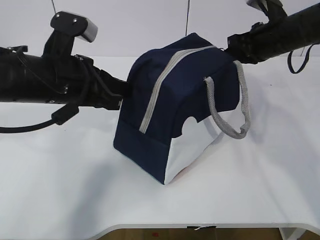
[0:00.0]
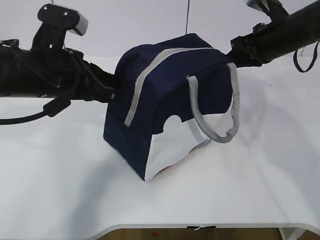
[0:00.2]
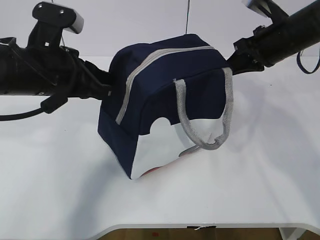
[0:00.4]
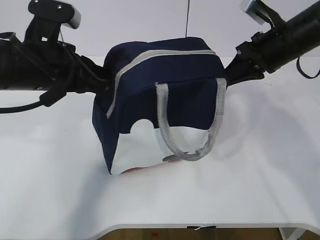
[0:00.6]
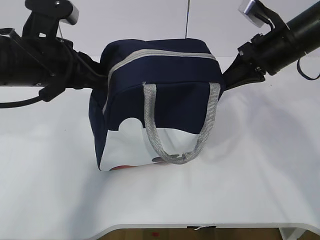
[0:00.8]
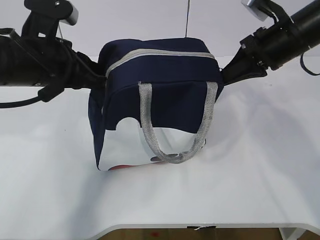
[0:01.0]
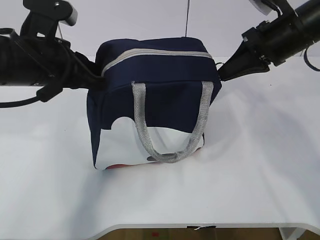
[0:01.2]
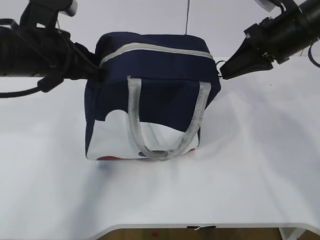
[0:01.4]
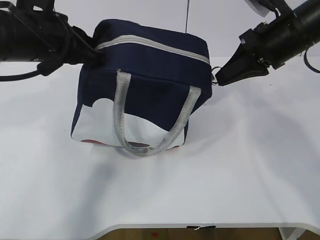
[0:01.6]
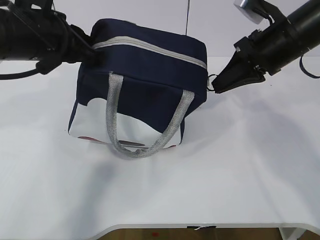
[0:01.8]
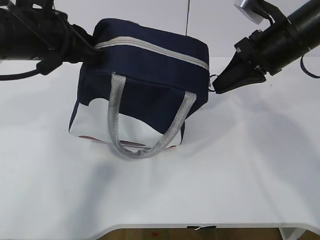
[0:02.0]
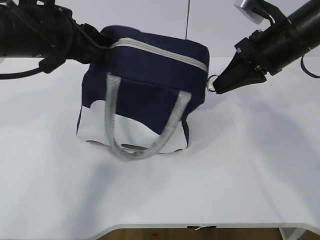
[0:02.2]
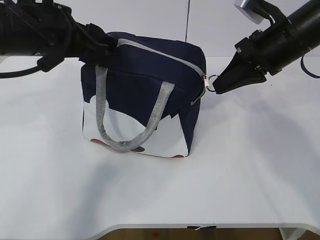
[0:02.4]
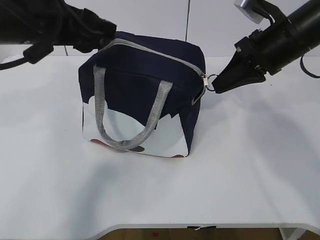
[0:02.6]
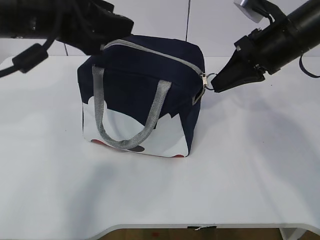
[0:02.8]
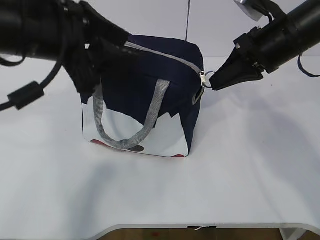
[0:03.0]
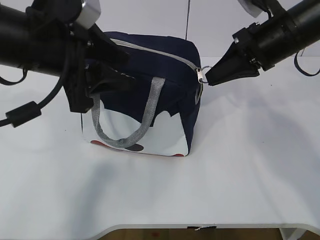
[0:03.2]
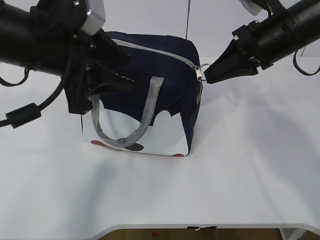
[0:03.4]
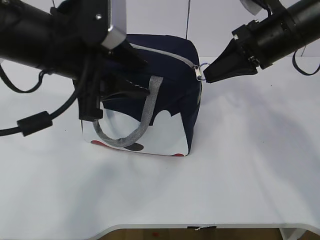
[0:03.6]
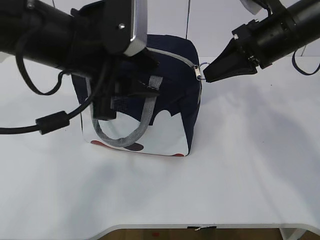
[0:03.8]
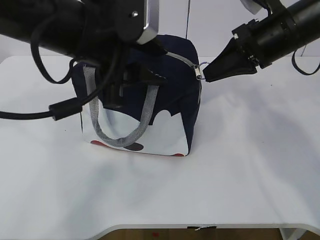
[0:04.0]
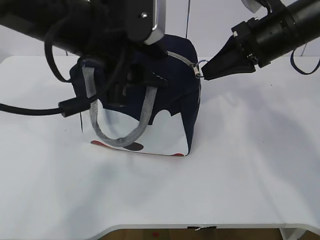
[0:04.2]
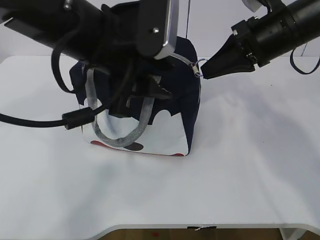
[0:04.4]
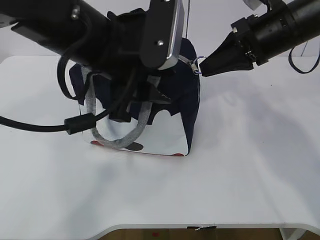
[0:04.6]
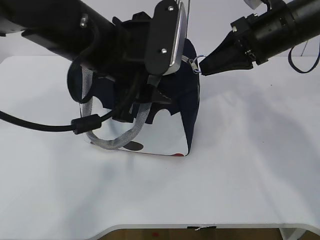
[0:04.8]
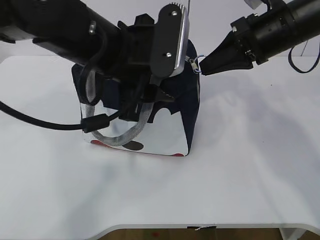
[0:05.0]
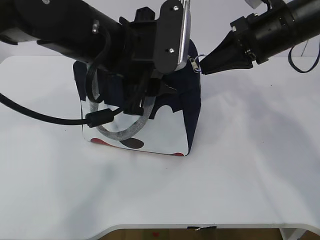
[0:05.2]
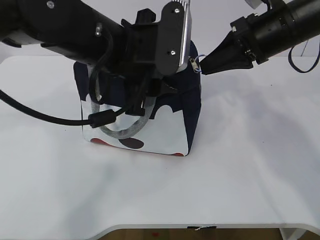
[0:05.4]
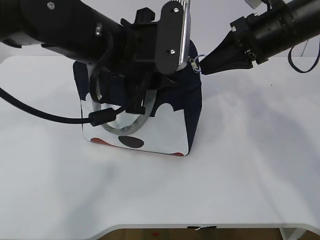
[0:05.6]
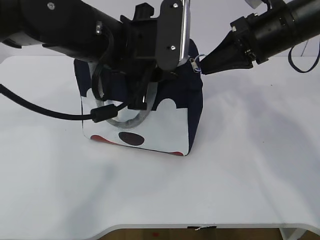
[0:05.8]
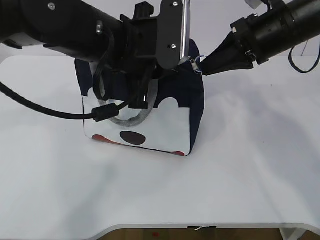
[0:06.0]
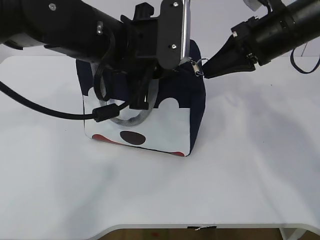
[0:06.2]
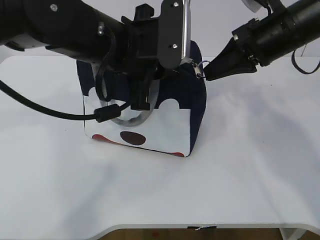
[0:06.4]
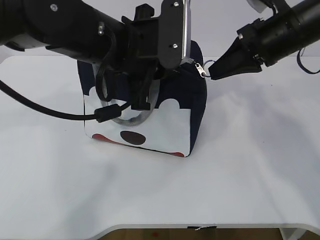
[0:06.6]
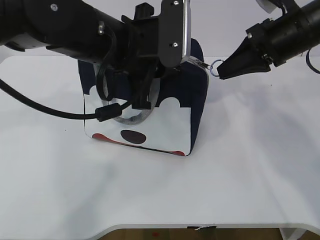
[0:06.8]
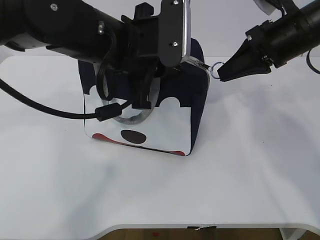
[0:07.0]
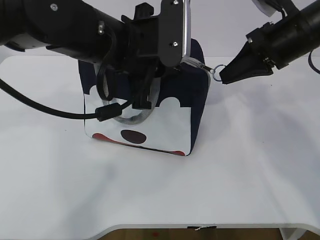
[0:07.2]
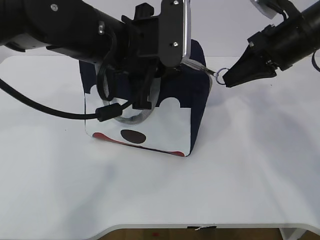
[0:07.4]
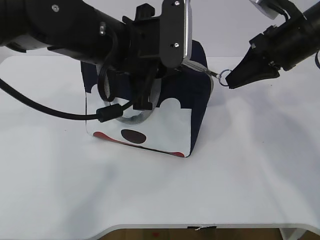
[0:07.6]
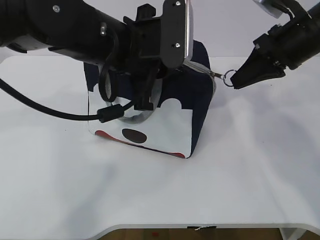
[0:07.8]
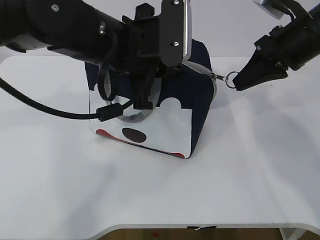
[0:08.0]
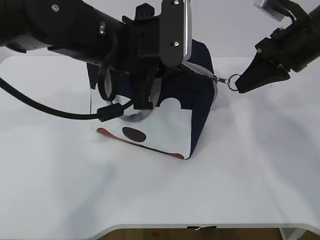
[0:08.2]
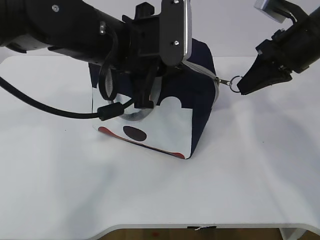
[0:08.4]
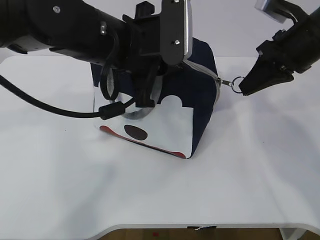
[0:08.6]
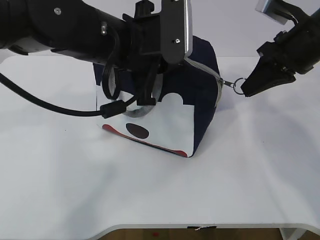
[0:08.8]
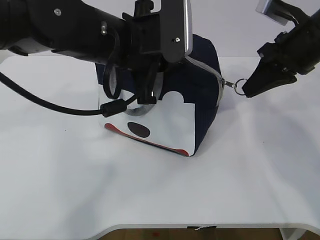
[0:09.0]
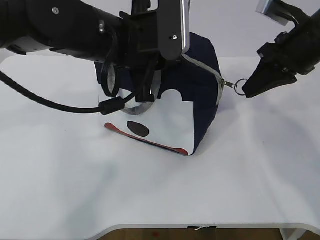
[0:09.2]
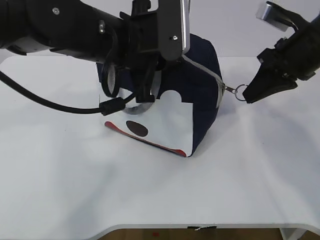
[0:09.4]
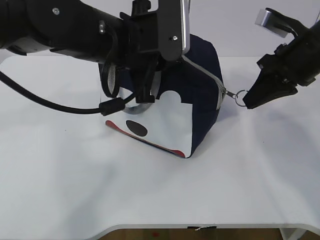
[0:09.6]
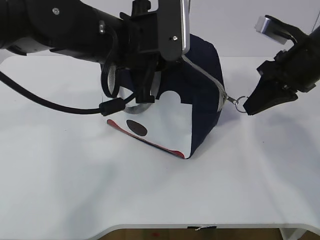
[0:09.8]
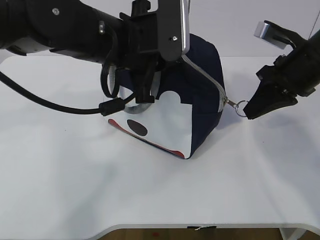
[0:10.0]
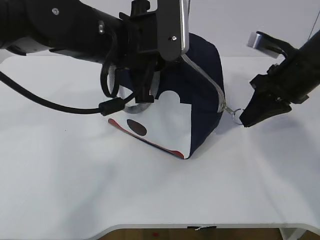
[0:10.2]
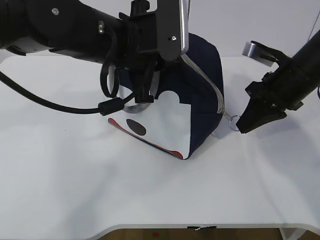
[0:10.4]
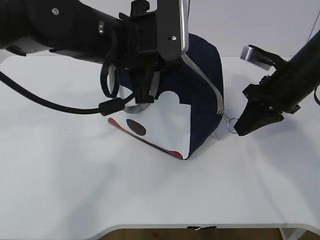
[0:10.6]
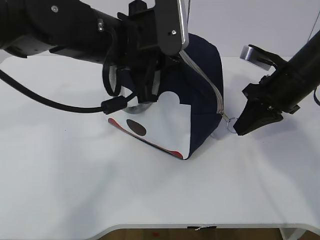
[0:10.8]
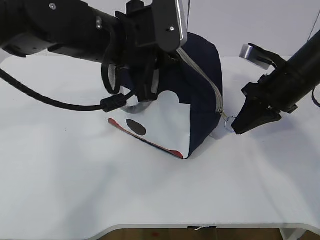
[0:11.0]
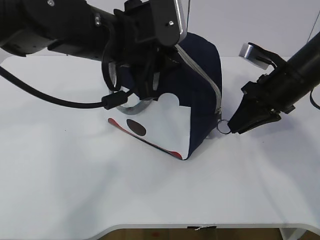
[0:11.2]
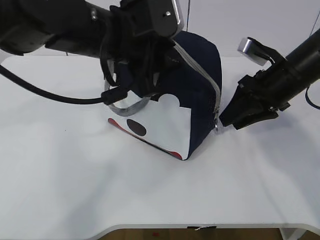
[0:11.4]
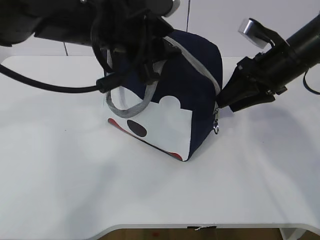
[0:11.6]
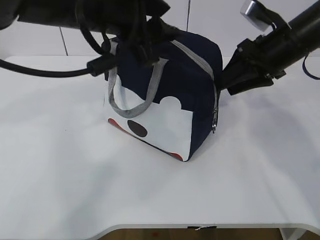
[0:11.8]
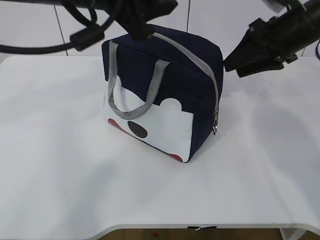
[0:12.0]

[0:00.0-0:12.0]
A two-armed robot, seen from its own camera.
0:00.0 to 0:01.6: The right gripper shifts about 5 cm backward. The left gripper changes place by about 5 cm.
0:01.6 to 0:03.0: The left gripper changes place by roughly 5 cm, and opens its fingers.
0:03.0 to 0:04.4: The left gripper shifts roughly 5 cm to the right.
0:04.4 to 0:06.0: The left gripper closes its fingers.
0:06.0 to 0:07.6: The grippers move only a little.
0:07.6 to 0:09.0: The grippers move only a little.
0:09.0 to 0:10.4: The right gripper travels downward by roughly 5 cm.
0:10.4 to 0:12.0: The grippers both shift upward by approximately 5 cm. The left gripper opens. The right gripper opens up.

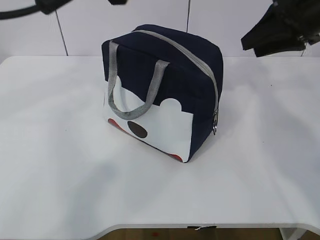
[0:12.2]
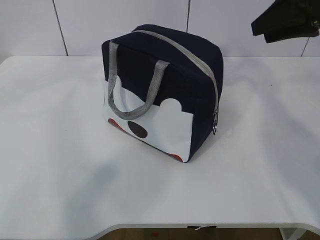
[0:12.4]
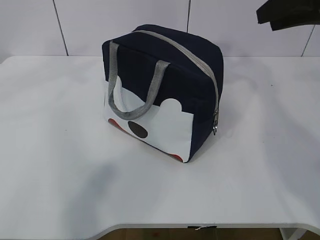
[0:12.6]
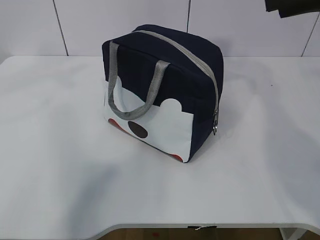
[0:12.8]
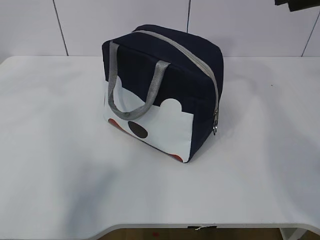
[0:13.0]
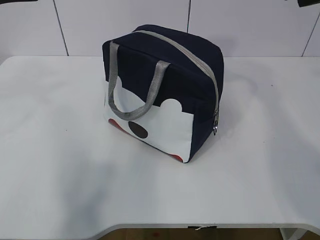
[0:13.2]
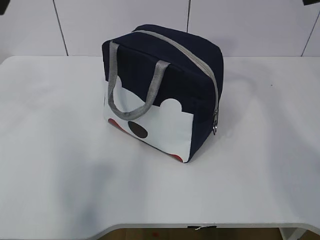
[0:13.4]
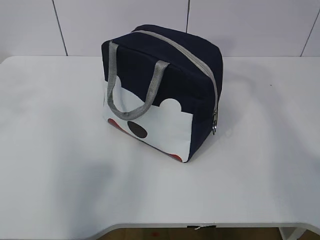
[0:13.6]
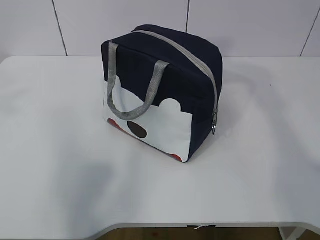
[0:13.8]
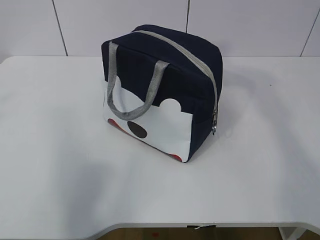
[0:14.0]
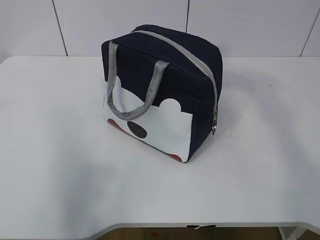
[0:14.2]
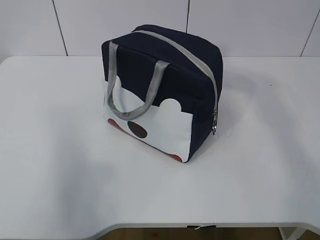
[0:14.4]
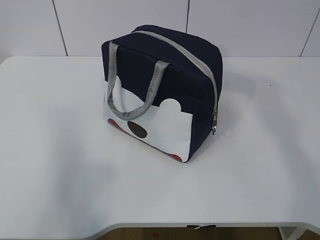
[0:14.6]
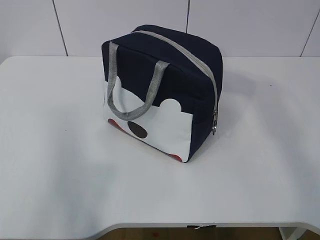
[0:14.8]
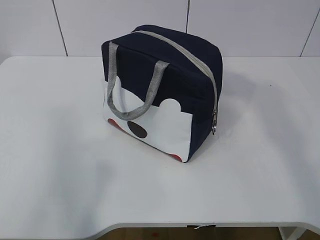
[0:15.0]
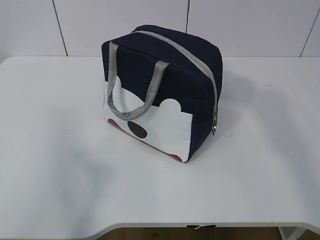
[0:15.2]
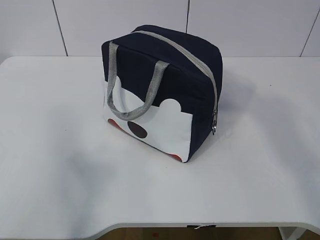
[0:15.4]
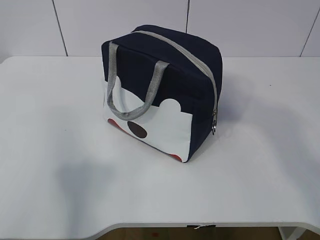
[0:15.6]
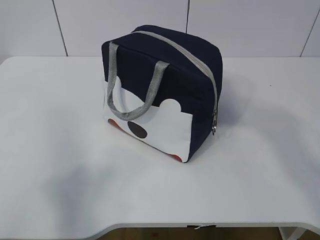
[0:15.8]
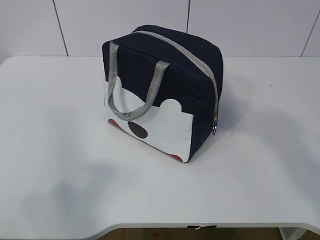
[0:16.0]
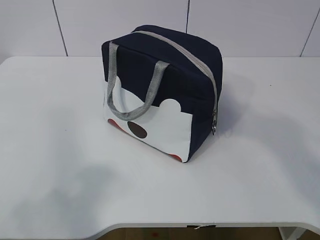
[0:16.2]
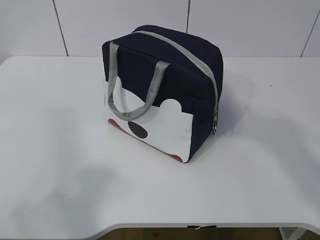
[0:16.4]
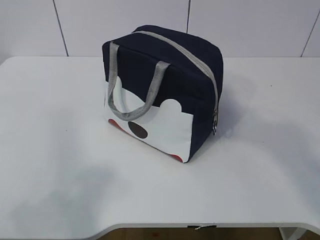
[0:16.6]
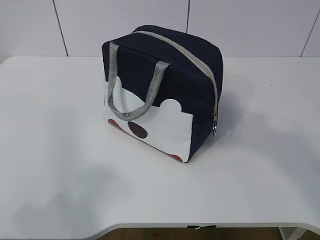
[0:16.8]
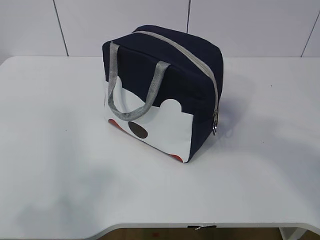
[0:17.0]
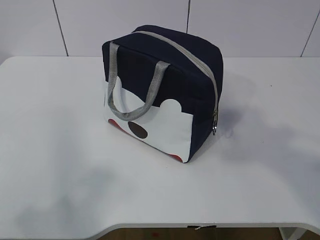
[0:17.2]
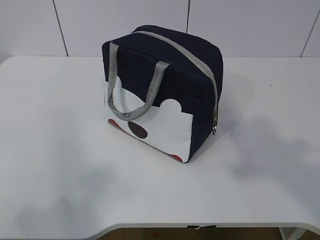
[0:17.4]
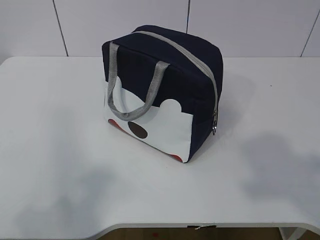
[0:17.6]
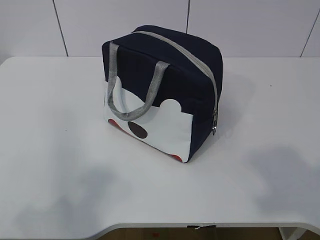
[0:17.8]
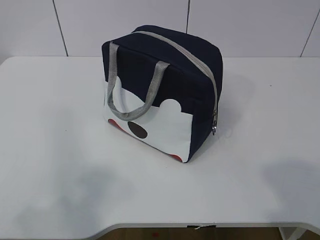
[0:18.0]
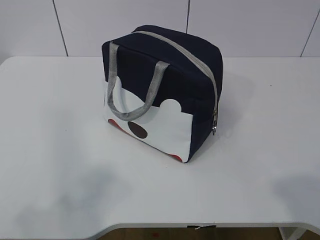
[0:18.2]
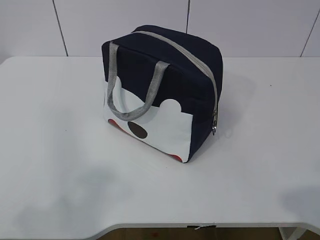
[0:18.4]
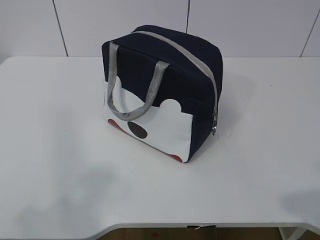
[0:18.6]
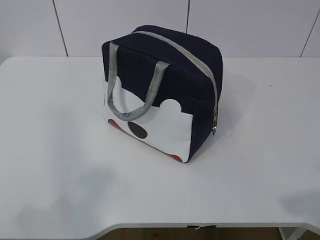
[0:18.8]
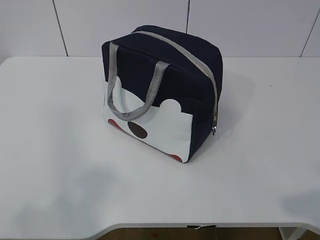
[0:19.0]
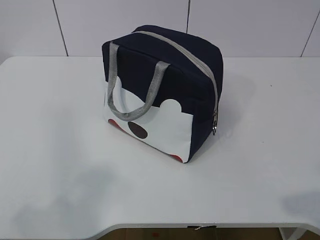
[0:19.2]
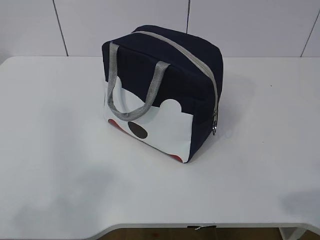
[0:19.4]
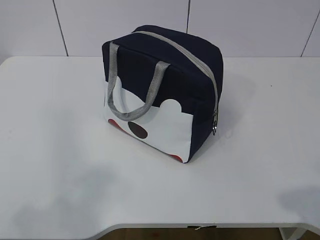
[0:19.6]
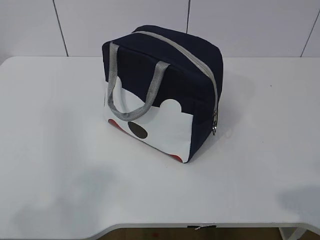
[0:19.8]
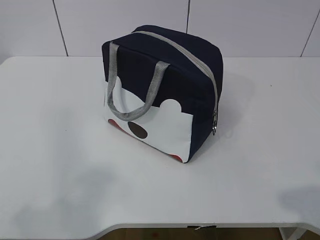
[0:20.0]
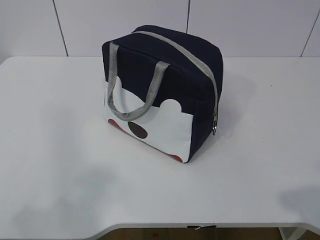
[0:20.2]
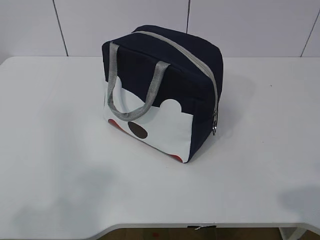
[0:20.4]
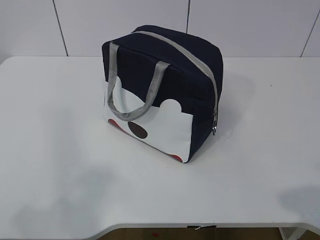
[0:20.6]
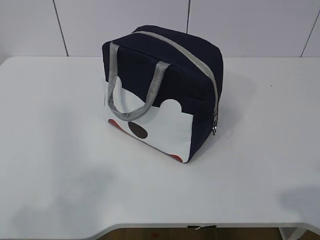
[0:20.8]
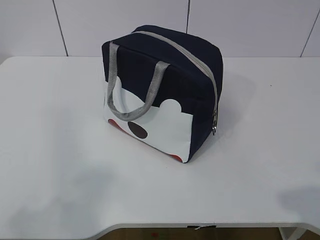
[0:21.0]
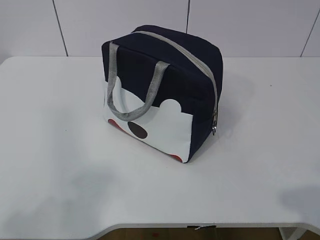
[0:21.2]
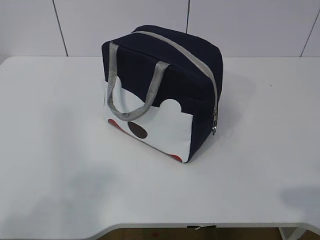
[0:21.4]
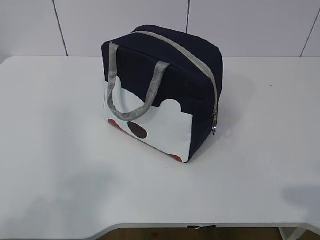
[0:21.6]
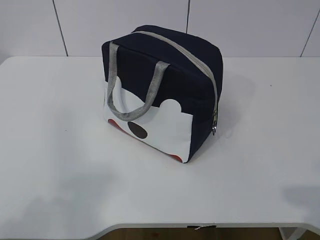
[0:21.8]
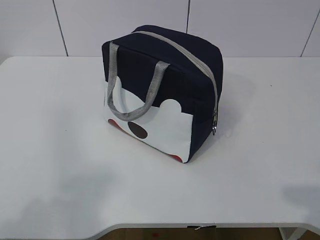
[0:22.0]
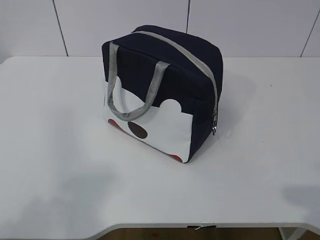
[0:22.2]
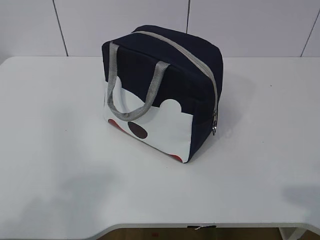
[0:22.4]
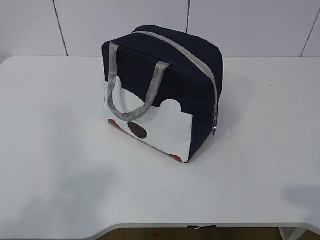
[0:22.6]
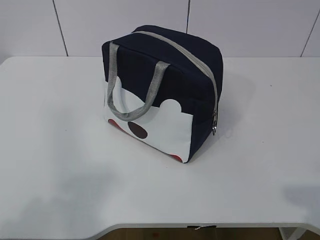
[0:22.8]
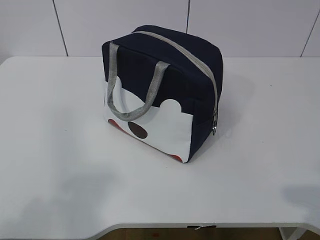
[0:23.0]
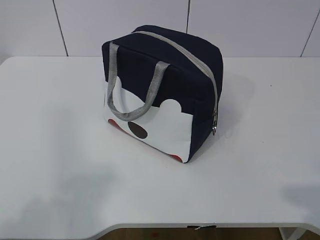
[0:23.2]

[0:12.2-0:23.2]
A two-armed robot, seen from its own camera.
0:12.2 to 0:13.8: The left gripper goes some 20 cm to the left and backward. Meanwhile the right gripper goes approximately 20 cm upward and backward.
0:13.8 to 0:15.4: The left gripper heads backward and downward, covering some 15 cm. The right gripper goes roughly 10 cm backward.
0:15.4 to 0:17.0: The left gripper heads downward, covering some 10 cm. The right gripper goes some 10 cm backward.
0:17.0 to 0:18.4: The right gripper shifts about 15 cm downward and backward.
0:21.6 to 0:23.2: Both grippers stay put.
